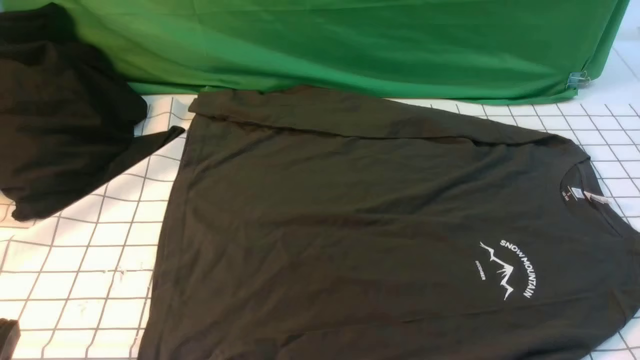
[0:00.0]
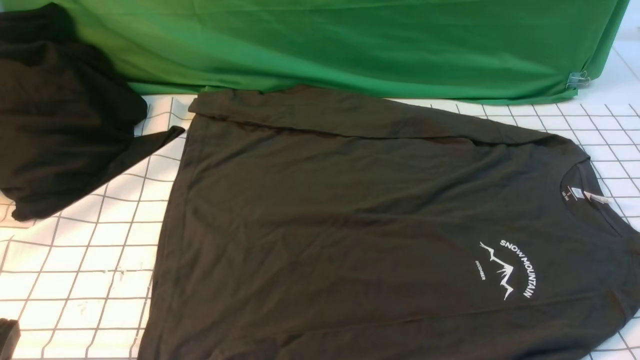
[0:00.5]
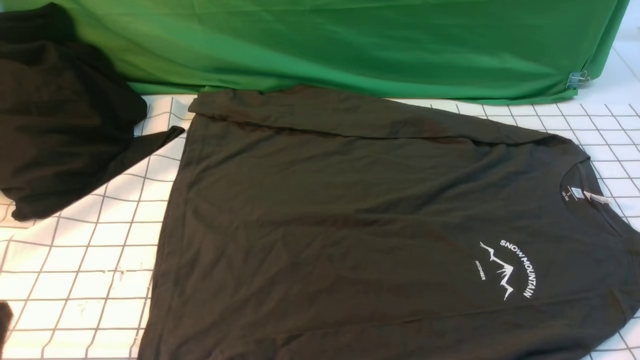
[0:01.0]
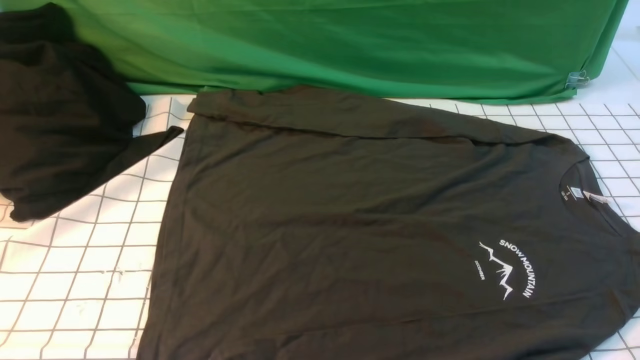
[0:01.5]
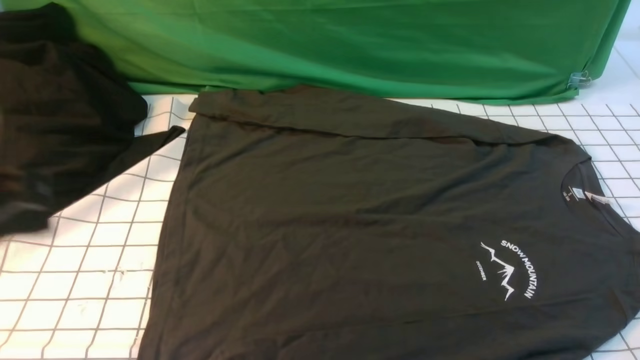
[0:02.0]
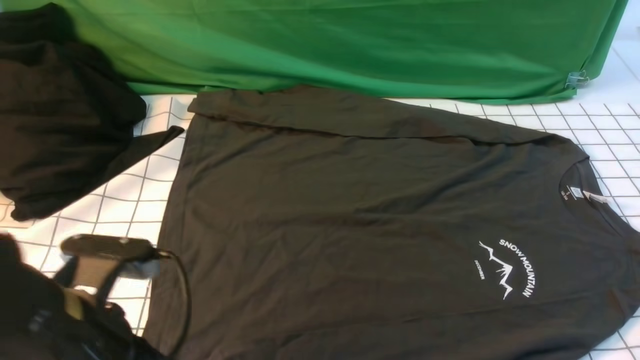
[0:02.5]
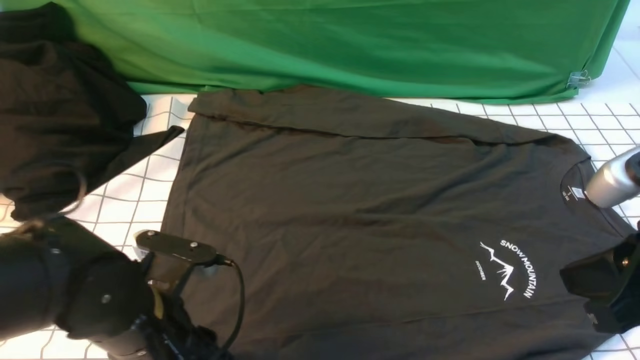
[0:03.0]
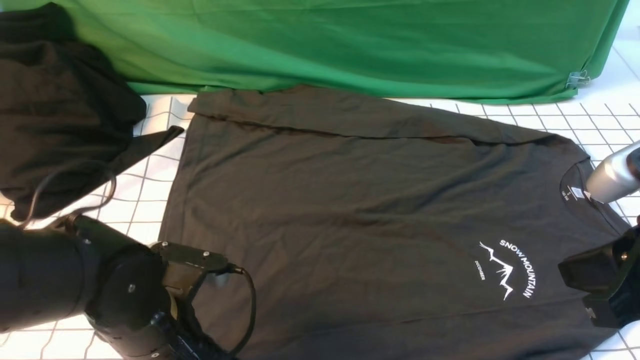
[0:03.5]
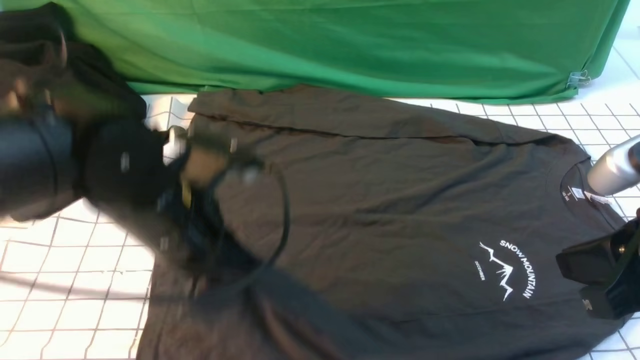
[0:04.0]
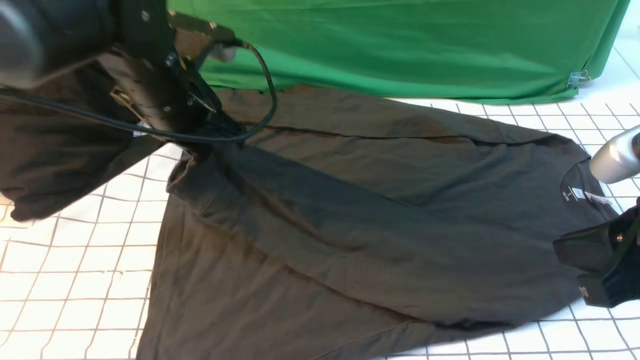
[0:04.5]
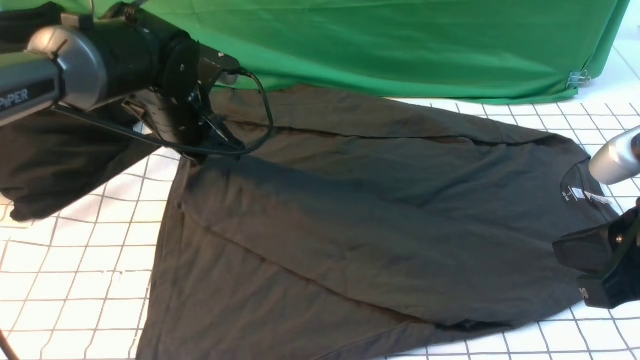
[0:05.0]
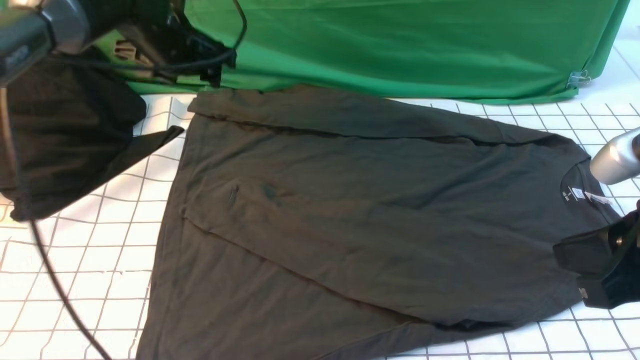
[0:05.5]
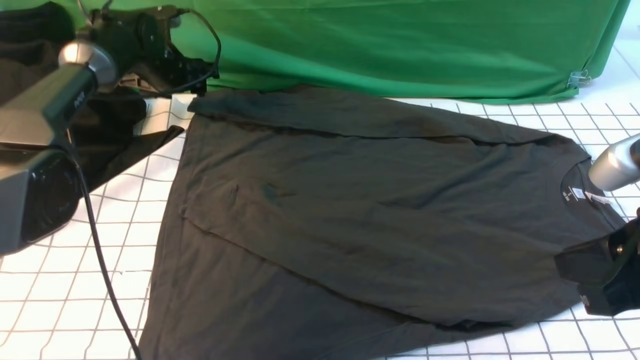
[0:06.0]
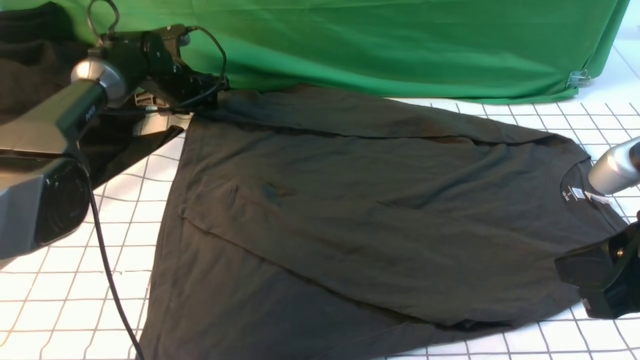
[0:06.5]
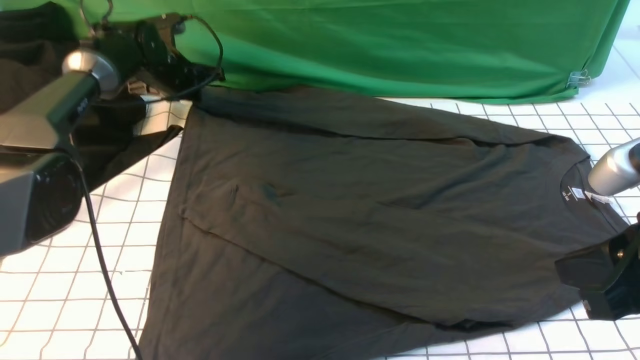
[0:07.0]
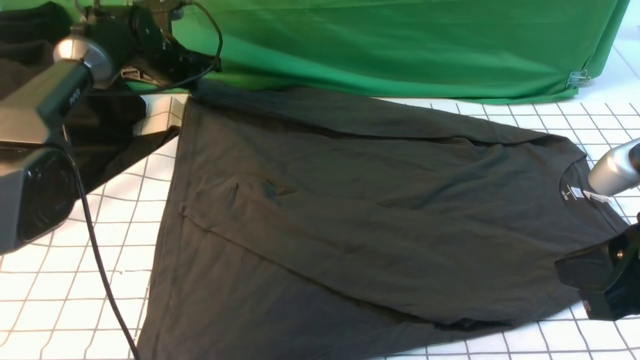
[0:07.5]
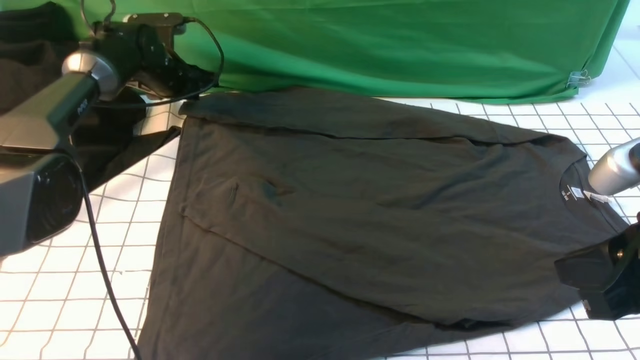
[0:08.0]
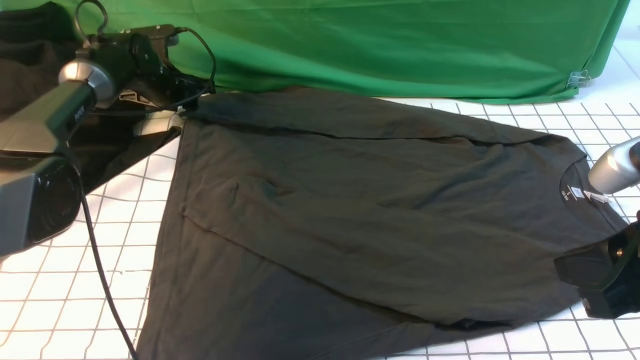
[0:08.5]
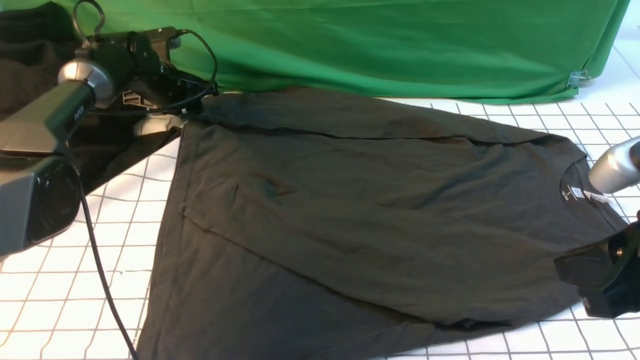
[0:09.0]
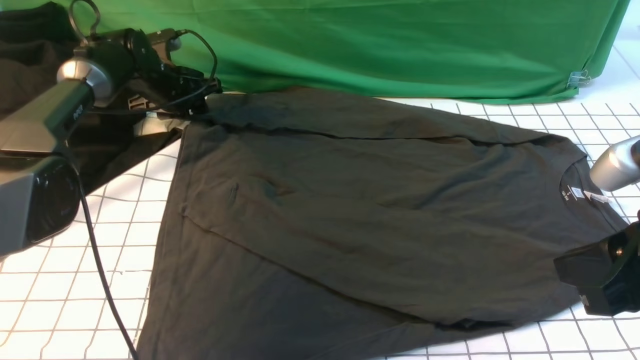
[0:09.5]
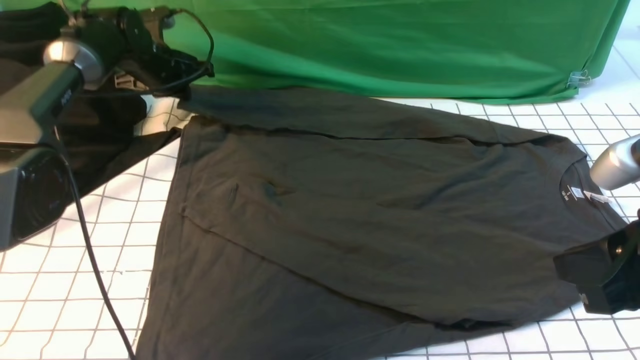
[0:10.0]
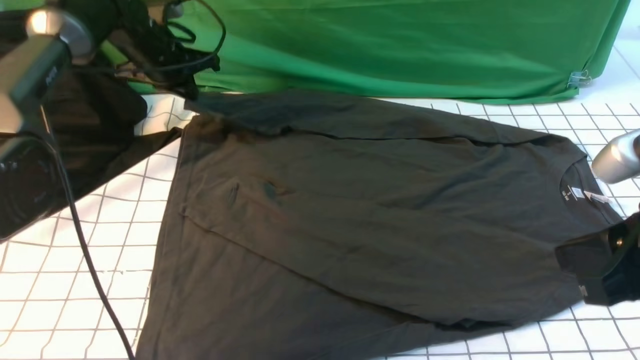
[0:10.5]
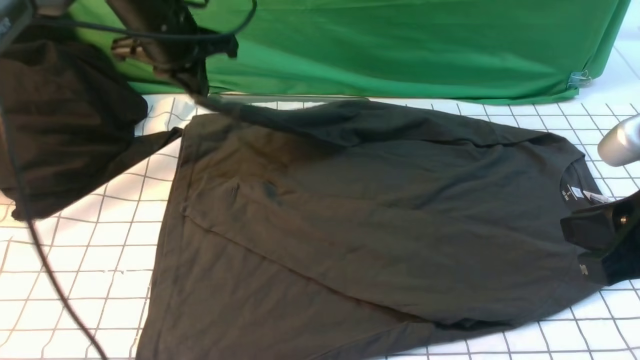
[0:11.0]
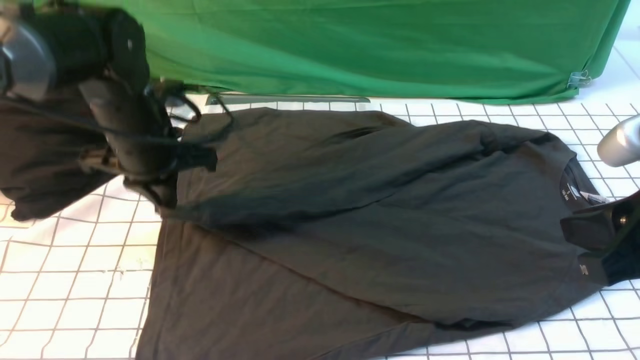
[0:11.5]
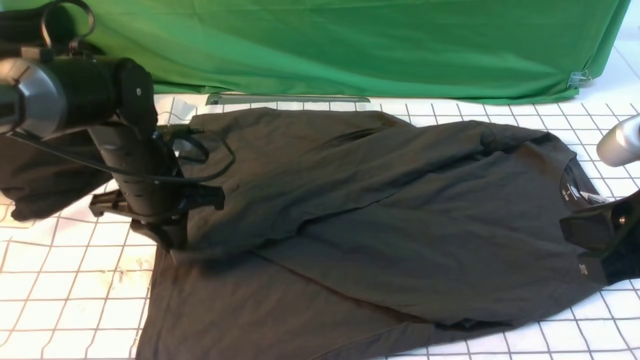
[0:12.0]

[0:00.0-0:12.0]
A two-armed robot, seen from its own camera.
Step, 0:00.0 to 0:03.5: use the left arm to clamp the cuff closest to it.
Step, 0:04.0 to 0:05.0: use the left arm to drag and place the cuff at the centered position on the left edge of the fabric.
Step, 0:05.5 to 0:09.5: use the left arm to clamp the cuff farthest from it.
Step, 0:10.0 to 0:12.0: use the left arm to drag and drop the cuff onto the cuff closest to the left arm.
0:00.0 to 0:02.0: The left gripper heads upward and forward, covering some 20 cm.
0:02.0 to 0:04.0: The right gripper shifts roughly 15 cm forward, to the left and upward. The left gripper goes roughly 20 cm to the right, forward and downward, and opens and closes again.
0:04.0 to 0:06.0: The left gripper heads forward, covering roughly 30 cm, and opens.
0:06.0 to 0:08.0: The left gripper closes, then reopens.
0:08.0 to 0:10.0: The left gripper closes.
0:10.0 to 0:12.0: The left gripper heads backward, covering about 20 cm, and opens up.

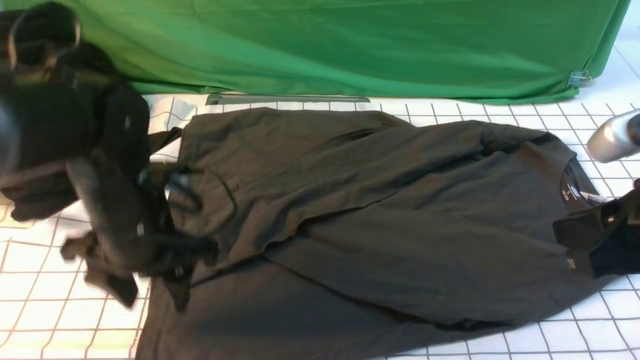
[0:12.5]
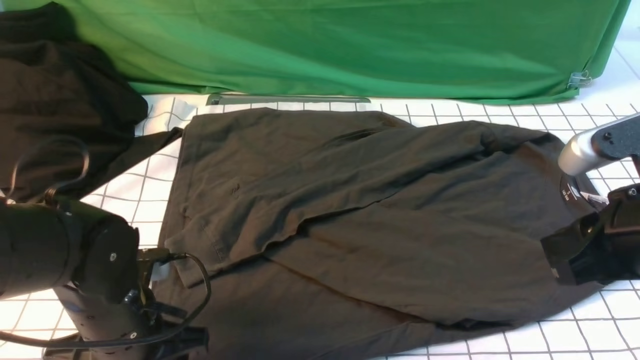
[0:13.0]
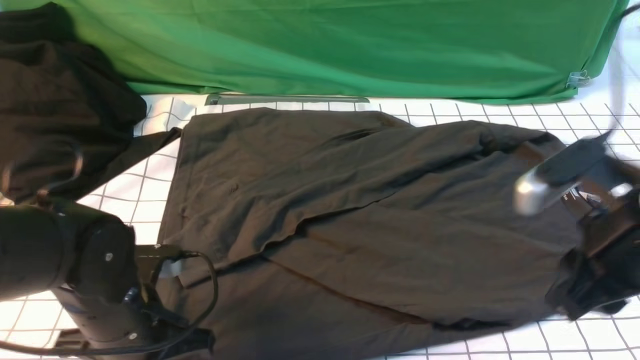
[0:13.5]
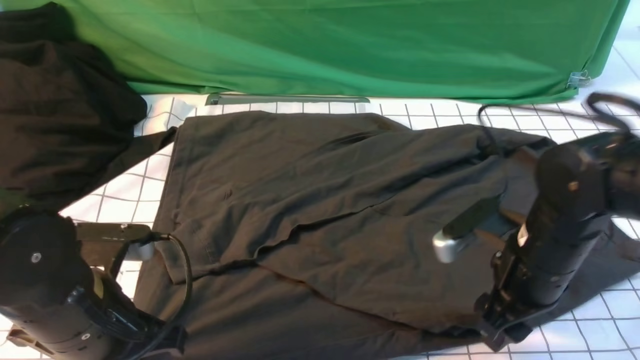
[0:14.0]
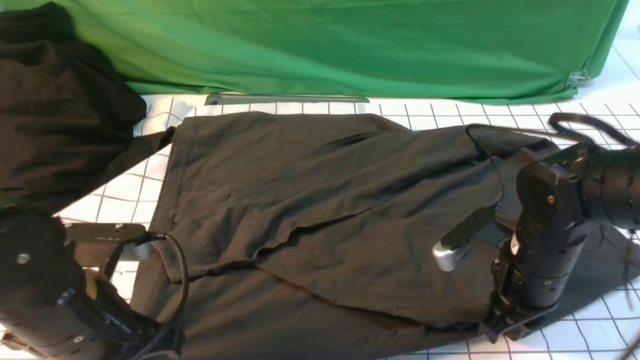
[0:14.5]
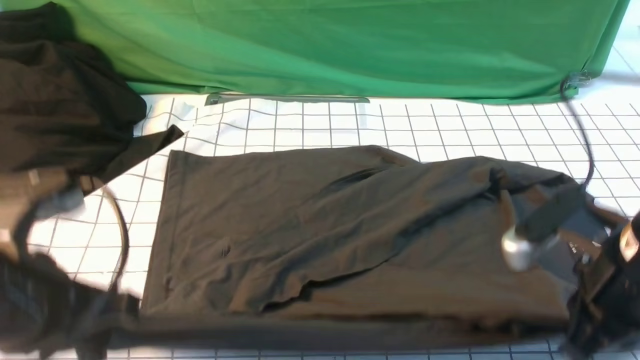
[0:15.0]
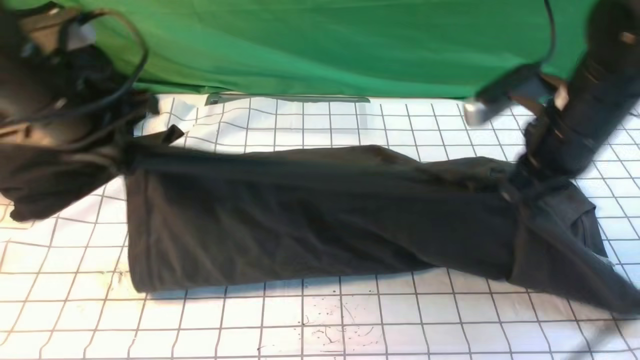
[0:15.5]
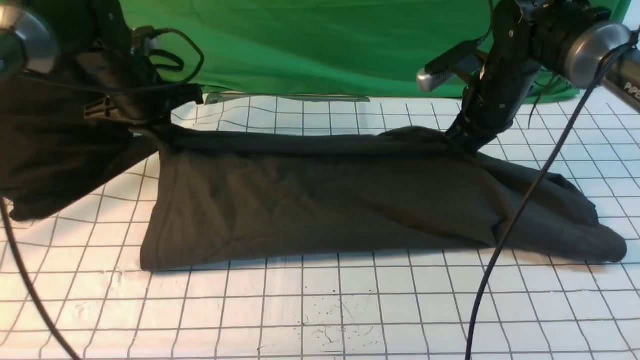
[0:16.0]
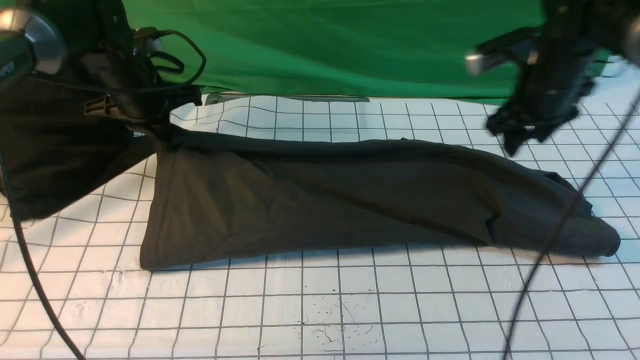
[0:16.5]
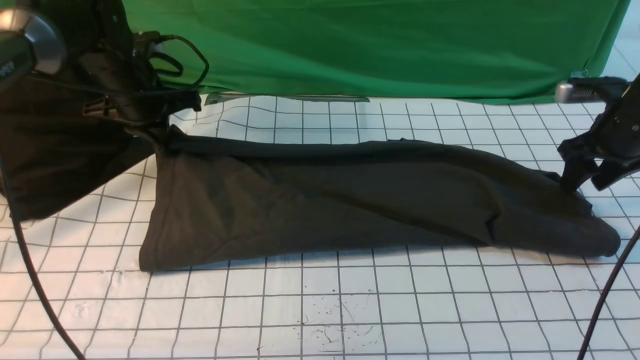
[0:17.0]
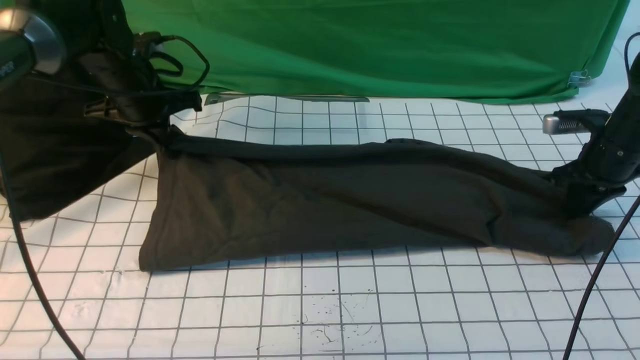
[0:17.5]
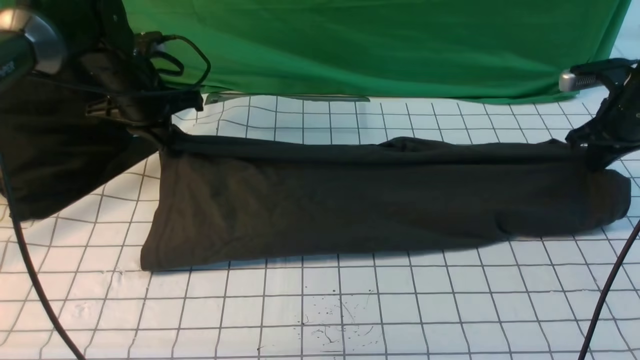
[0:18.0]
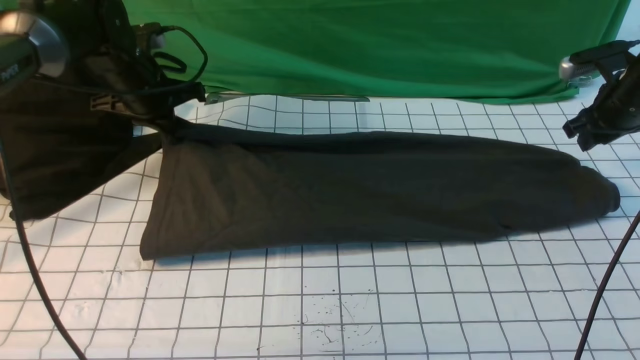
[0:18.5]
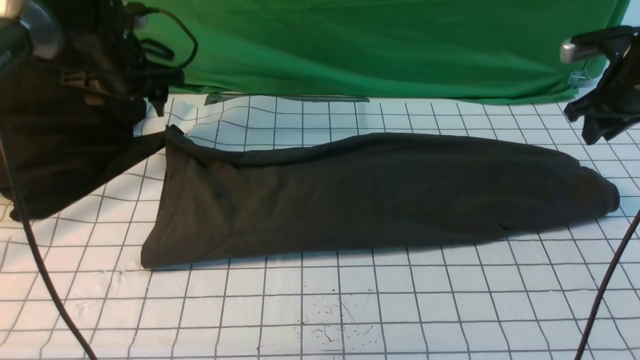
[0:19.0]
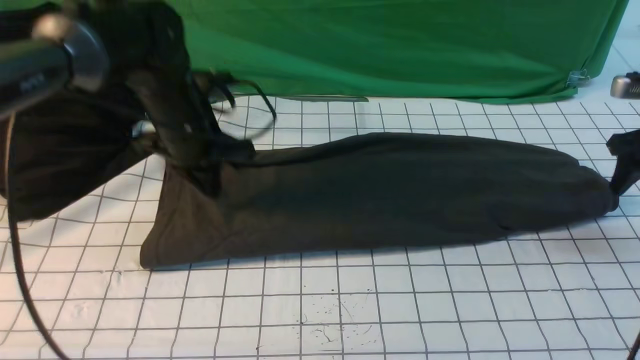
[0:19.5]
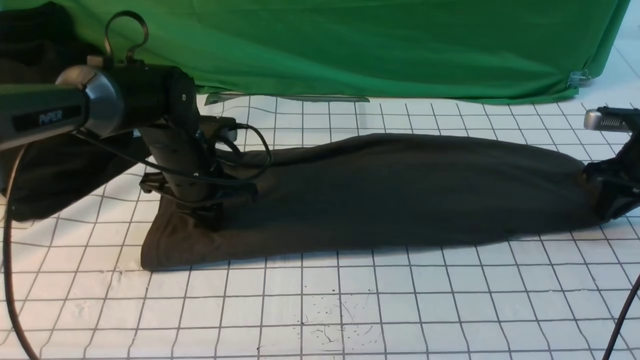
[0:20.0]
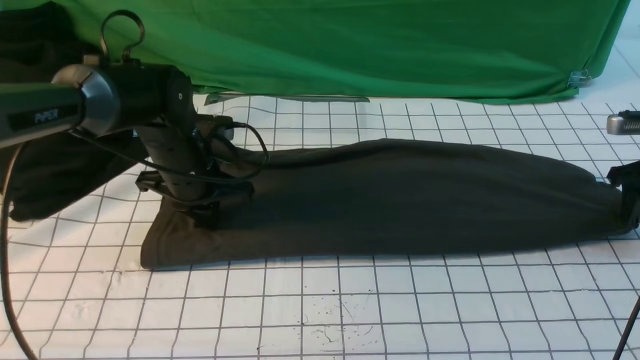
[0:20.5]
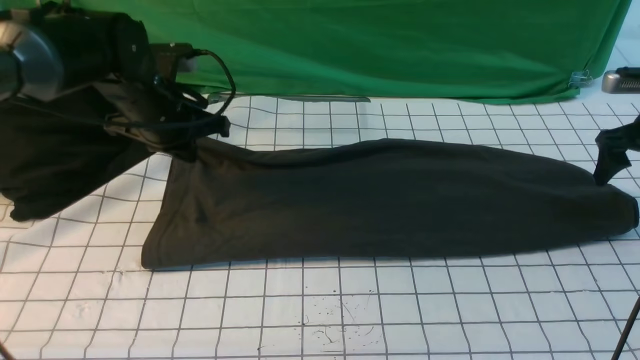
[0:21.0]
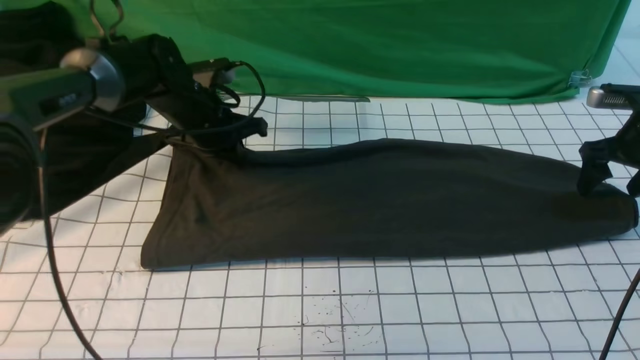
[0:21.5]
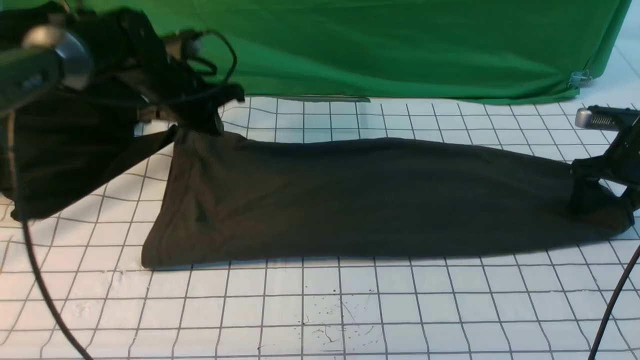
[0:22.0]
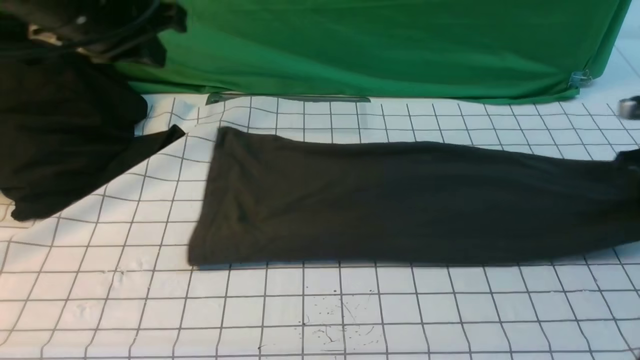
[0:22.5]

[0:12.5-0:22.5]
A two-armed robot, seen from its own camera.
Step, 0:12.5 to 0:14.0: use both arms simultaneously to clamp the lower edge of the clothing fabric.
Step, 0:14.5 to 0:18.5: use both arms to drag the lower edge of the fabric forward and fold it over the upper edge.
Step, 0:19.0 to 0:22.0: use the right arm to clamp the right edge of the fabric.
0:12.5 to 0:14.5: The left gripper goes roughly 10 cm backward, and closes its fingers. The right gripper moves downward and forward, some 15 cm, and opens, then closes once more.
0:14.5 to 0:16.5: The left gripper travels forward by roughly 30 cm. The right gripper shifts some 20 cm forward, and opens its fingers.
0:16.5 to 0:18.5: The right gripper goes approximately 10 cm to the right.
0:18.5 to 0:20.5: The left gripper moves backward and to the right, approximately 10 cm, and opens, then closes once more; the right gripper goes approximately 5 cm backward, and reaches roughly 5 cm upward, then returns.
0:20.5 to 0:22.5: The right gripper closes up. Meanwhile the left gripper swings up and down, some 20 cm each way, with 2 reversals.
